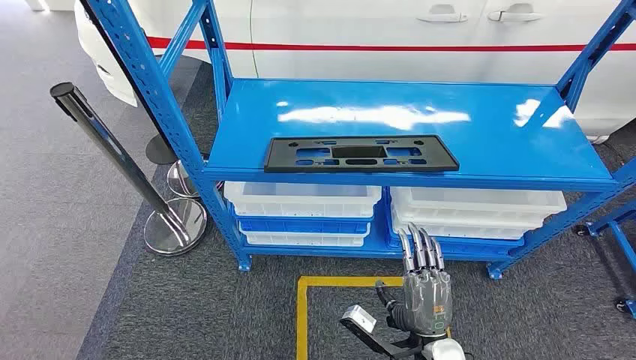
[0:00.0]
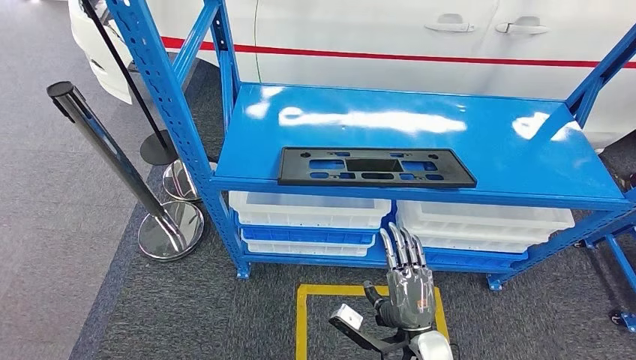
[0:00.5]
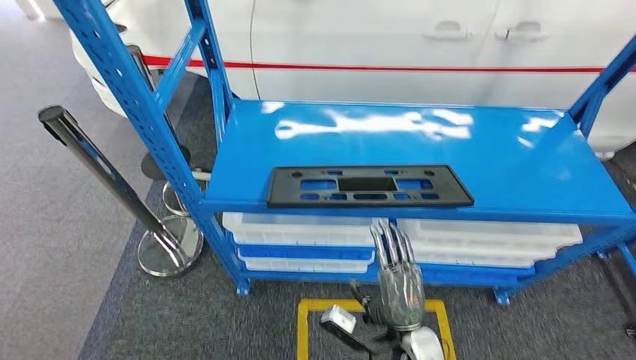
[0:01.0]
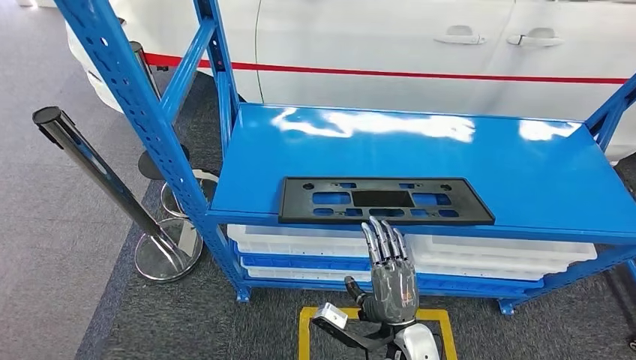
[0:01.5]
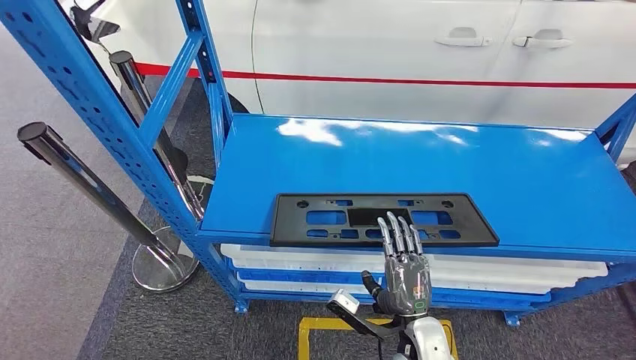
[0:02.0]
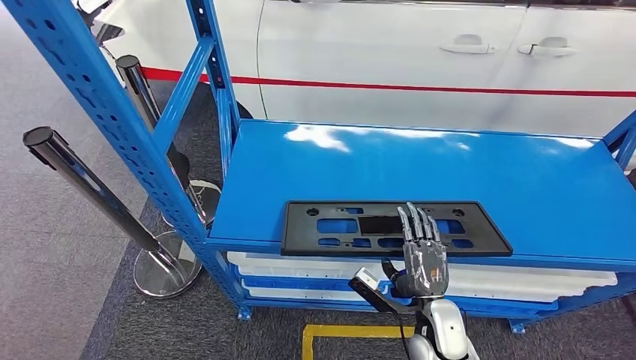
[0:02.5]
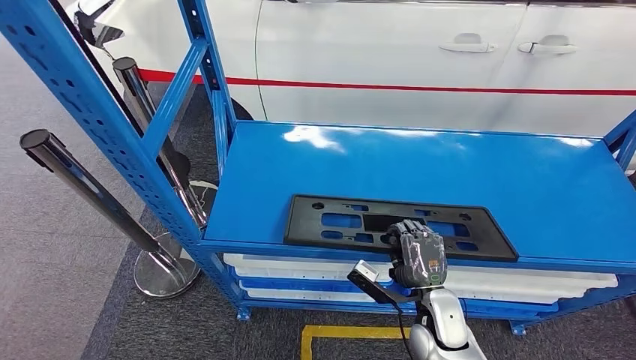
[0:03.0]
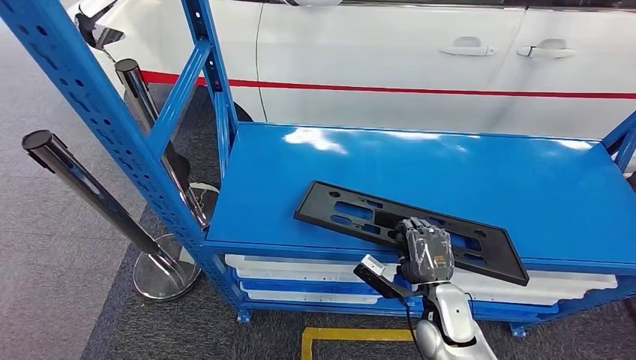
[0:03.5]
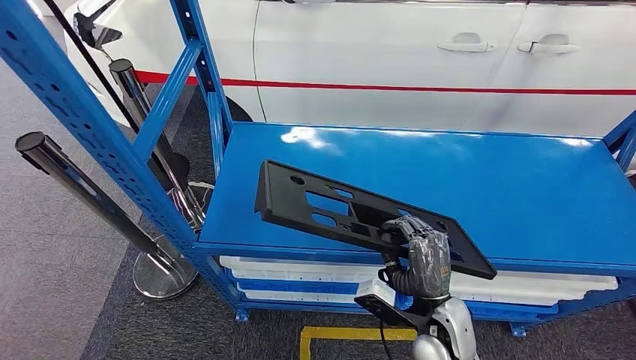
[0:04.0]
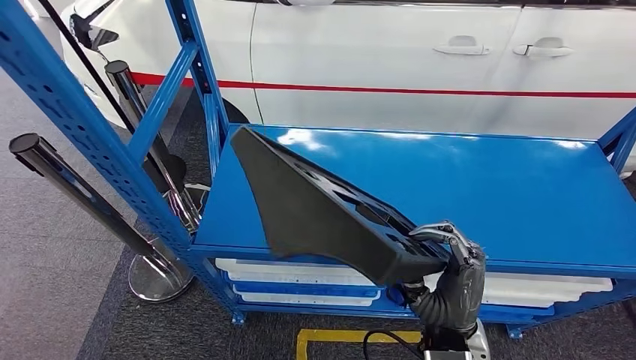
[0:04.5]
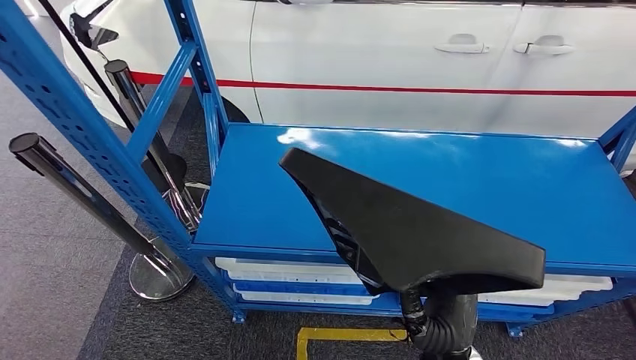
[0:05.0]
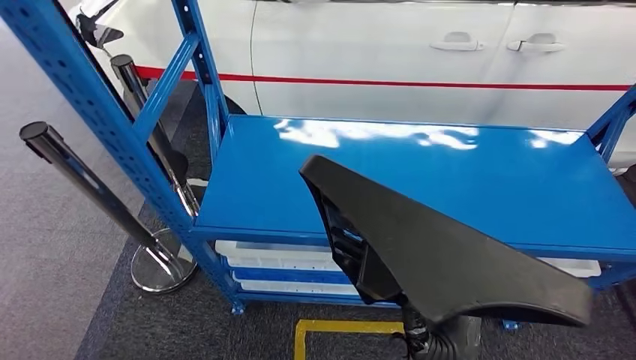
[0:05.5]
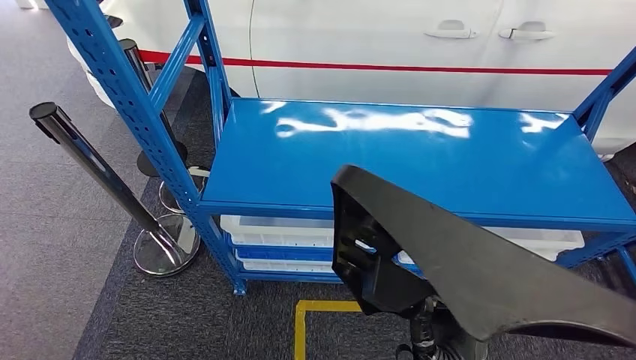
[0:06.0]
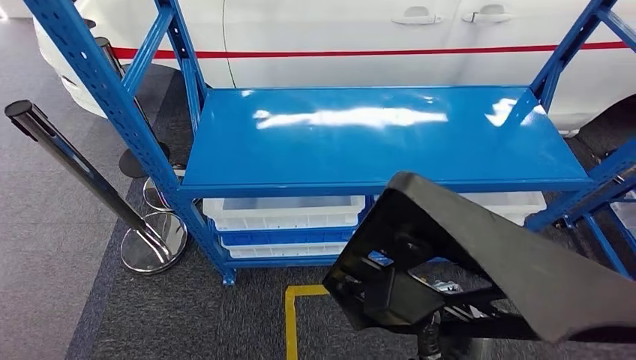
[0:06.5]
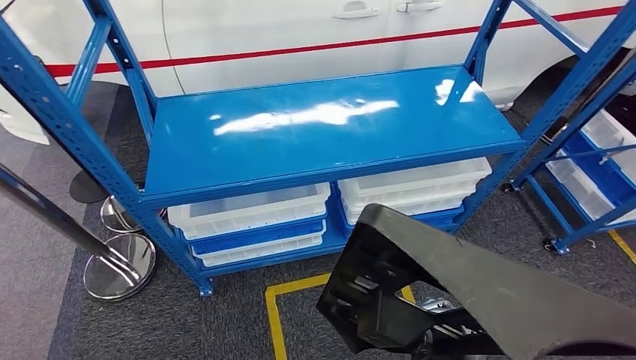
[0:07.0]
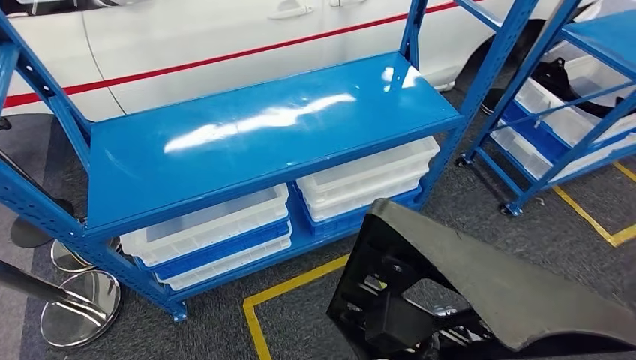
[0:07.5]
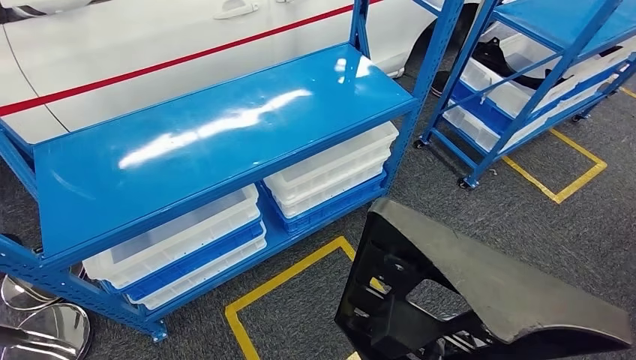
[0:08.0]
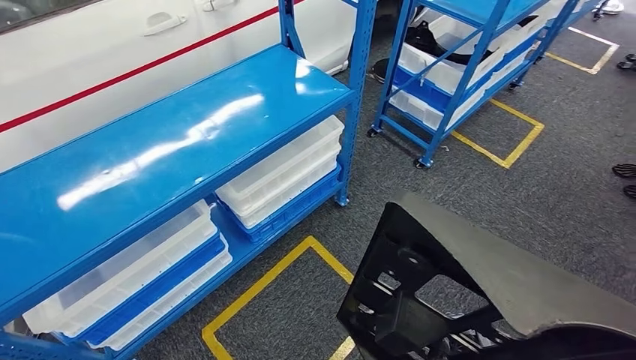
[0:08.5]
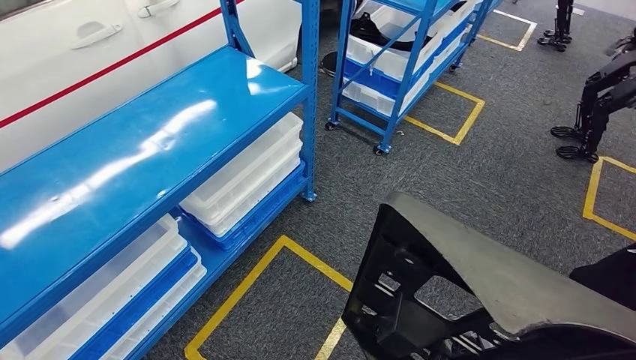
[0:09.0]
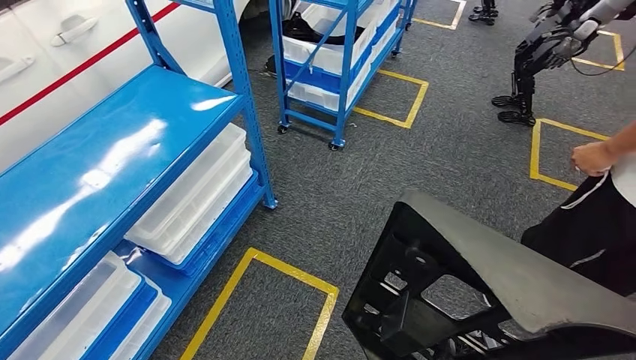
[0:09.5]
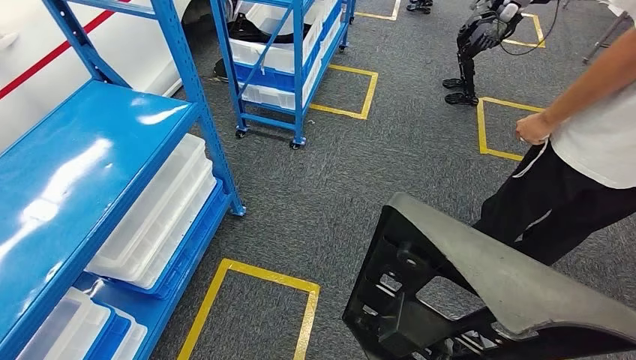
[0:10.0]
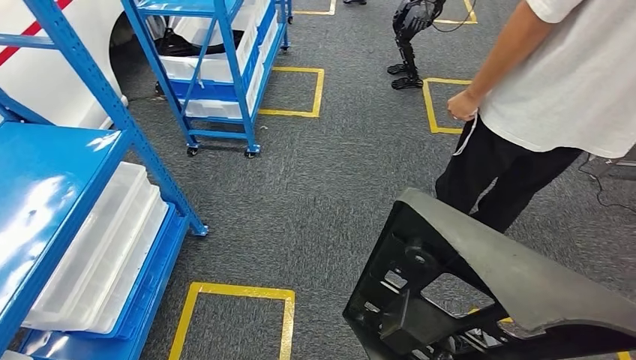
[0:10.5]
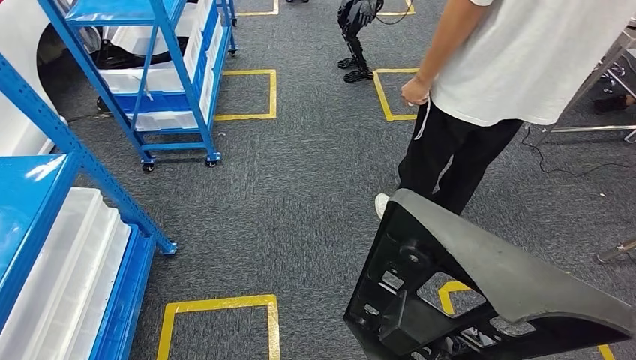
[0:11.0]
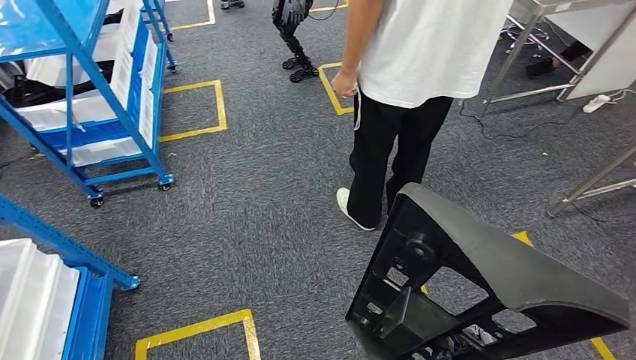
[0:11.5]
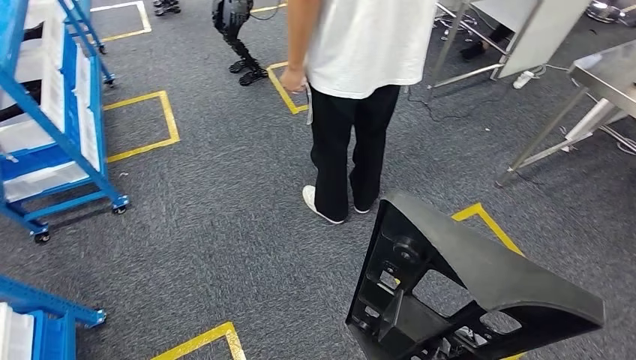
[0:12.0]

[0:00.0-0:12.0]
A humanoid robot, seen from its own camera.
Step, 0:00.0 to 0:07.5: Pick up the large material from the shelf.

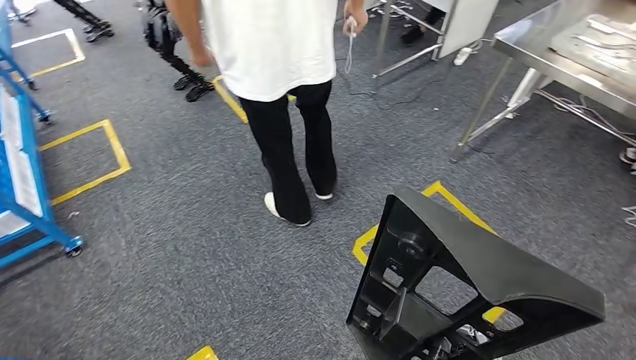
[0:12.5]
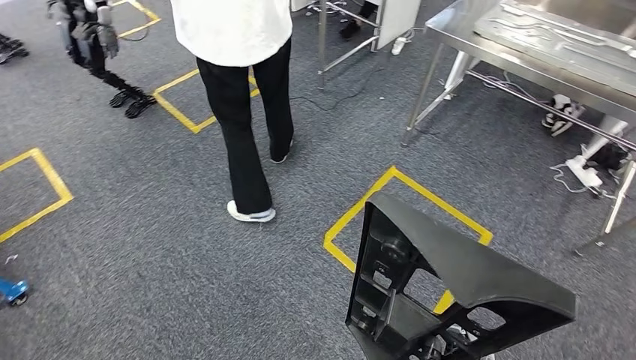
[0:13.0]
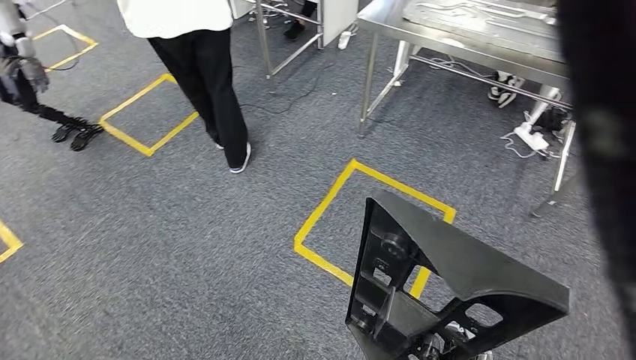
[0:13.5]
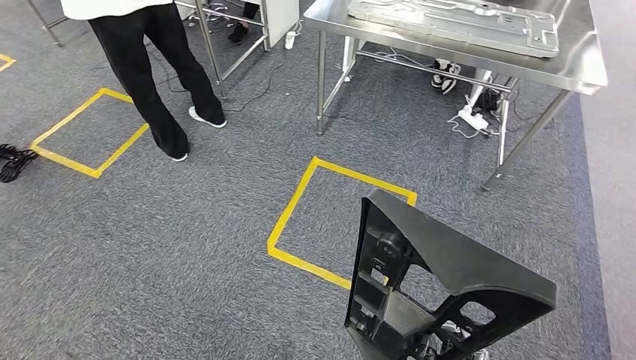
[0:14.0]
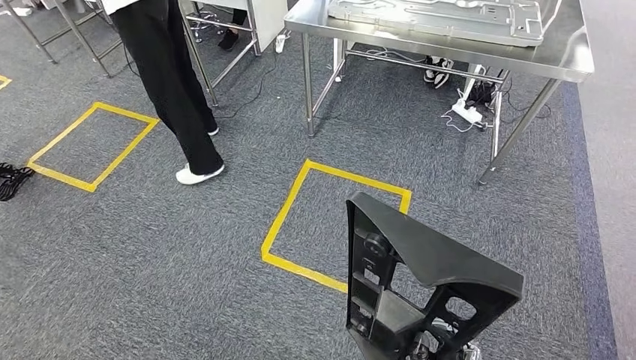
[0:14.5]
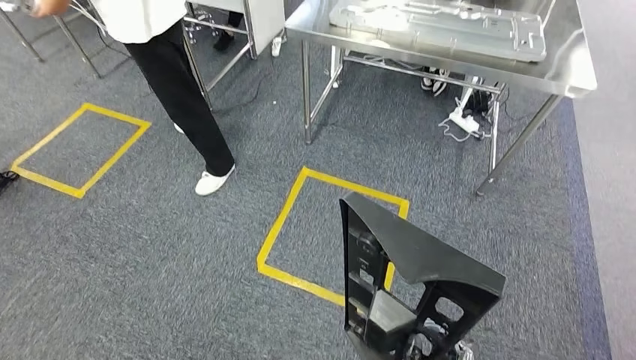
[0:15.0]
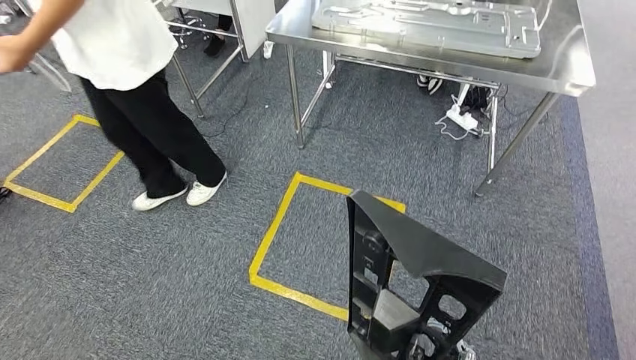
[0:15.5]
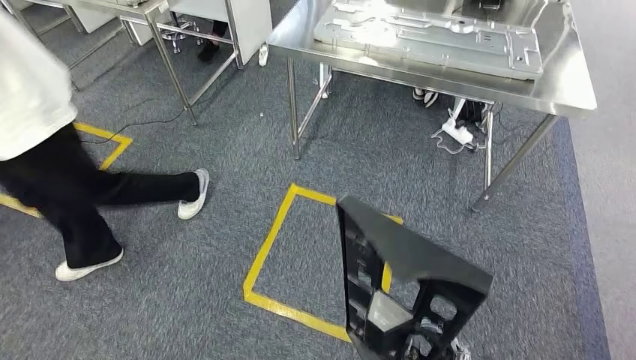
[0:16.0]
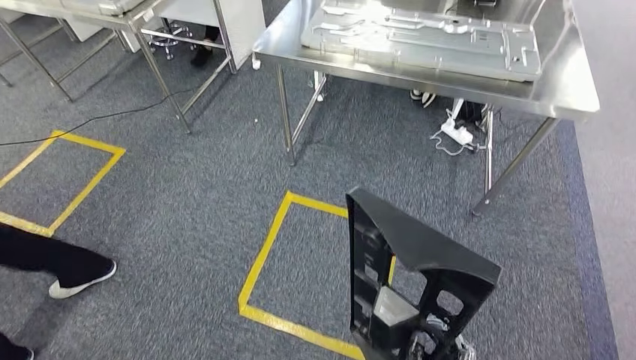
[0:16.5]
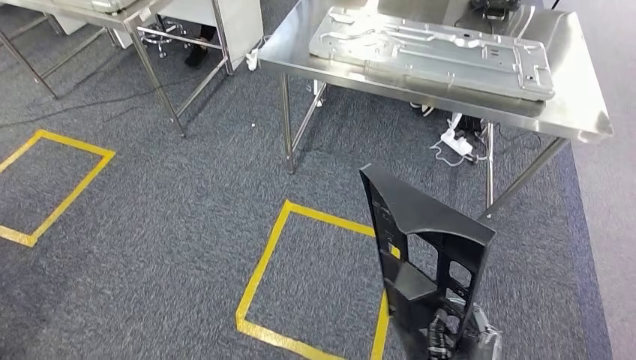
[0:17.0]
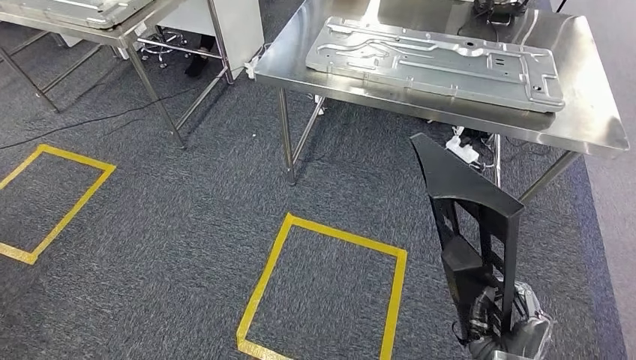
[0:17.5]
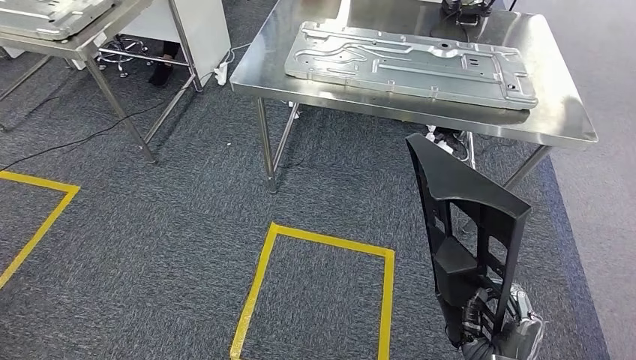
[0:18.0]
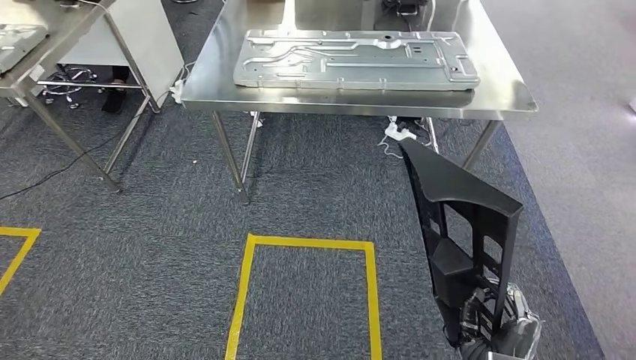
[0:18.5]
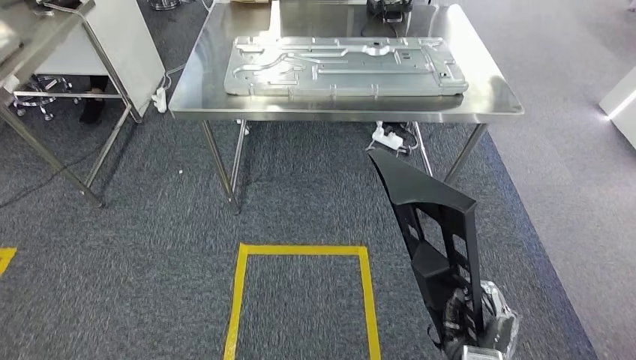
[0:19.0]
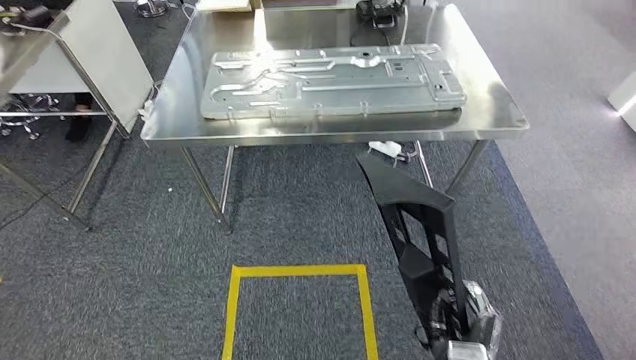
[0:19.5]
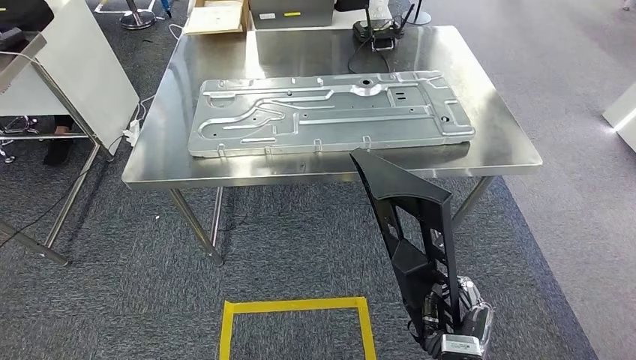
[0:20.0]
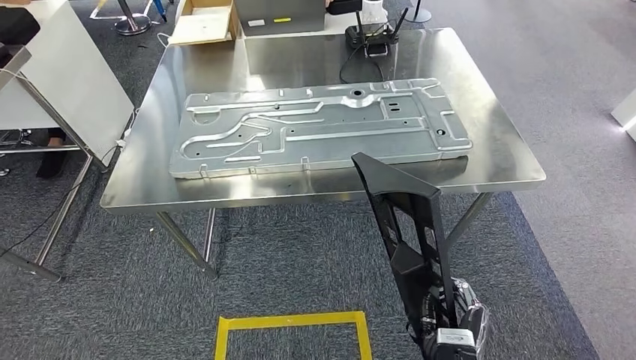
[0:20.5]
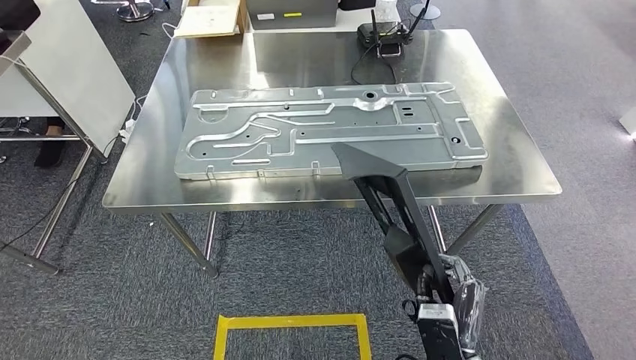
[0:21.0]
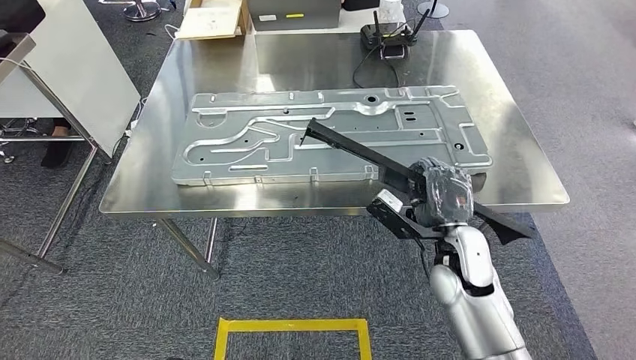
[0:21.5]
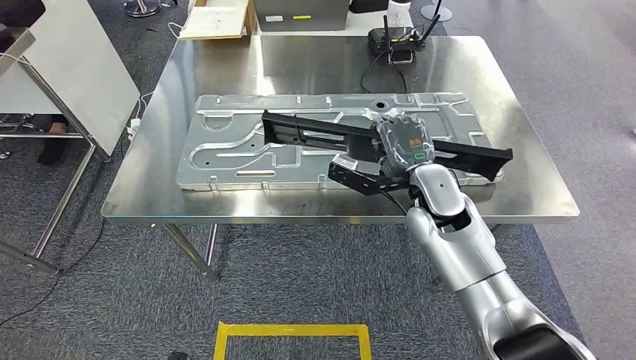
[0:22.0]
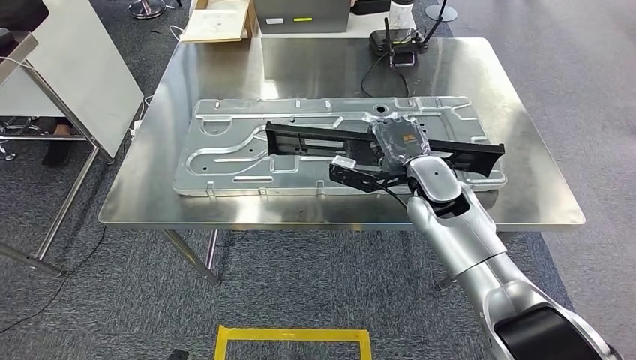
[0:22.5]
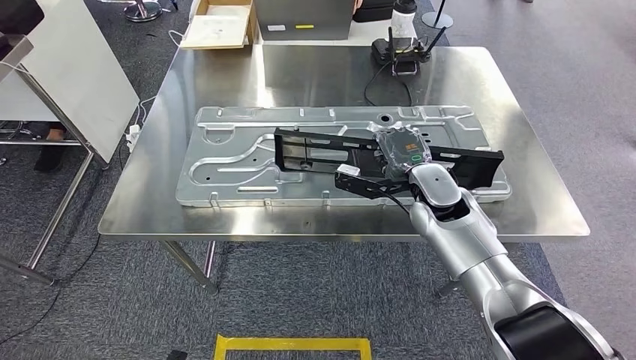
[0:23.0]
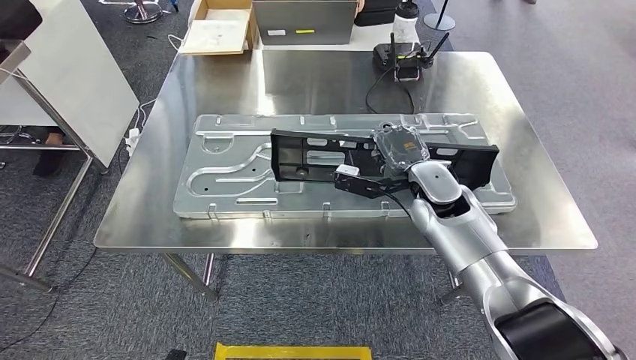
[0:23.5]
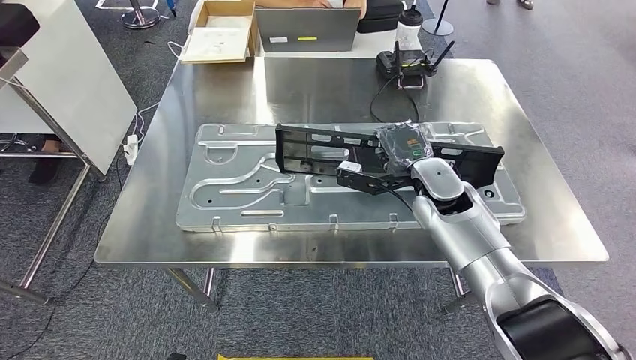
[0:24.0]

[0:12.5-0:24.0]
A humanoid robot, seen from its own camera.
Step, 0:12.5 to 0:21.0: Move the large material to the workbench.
